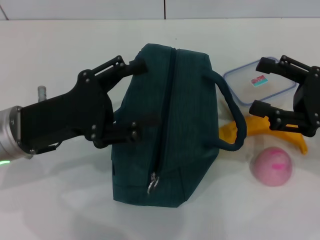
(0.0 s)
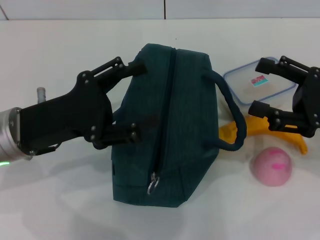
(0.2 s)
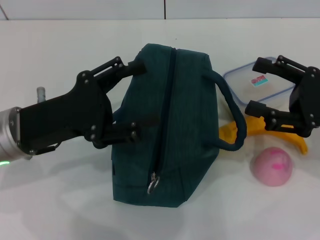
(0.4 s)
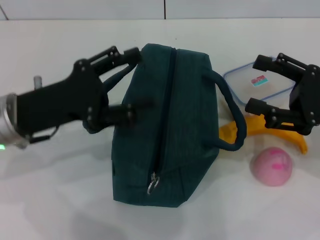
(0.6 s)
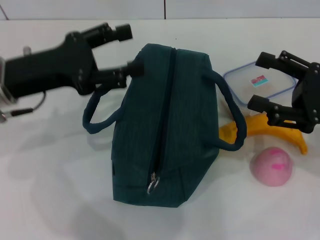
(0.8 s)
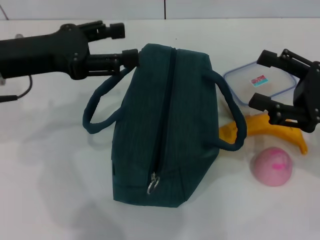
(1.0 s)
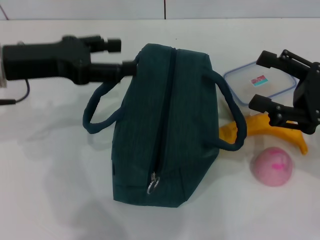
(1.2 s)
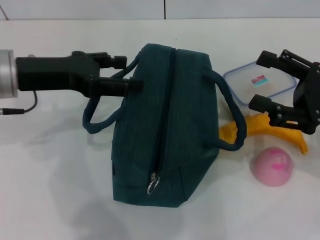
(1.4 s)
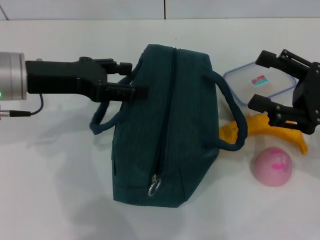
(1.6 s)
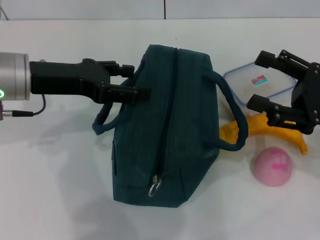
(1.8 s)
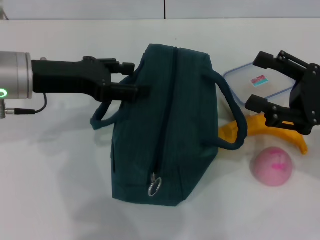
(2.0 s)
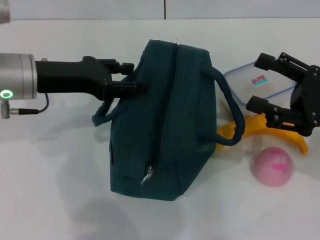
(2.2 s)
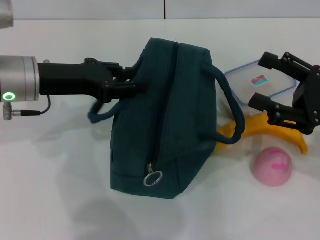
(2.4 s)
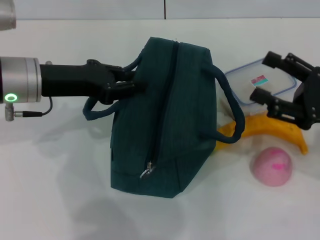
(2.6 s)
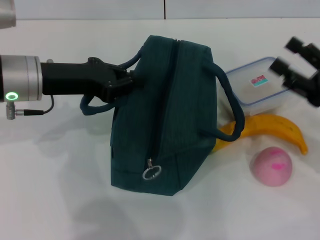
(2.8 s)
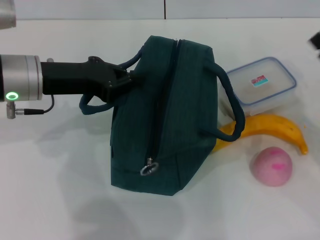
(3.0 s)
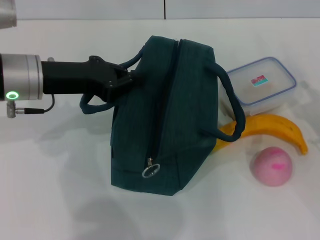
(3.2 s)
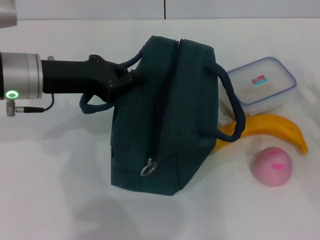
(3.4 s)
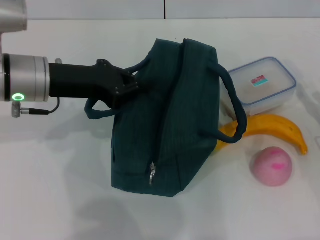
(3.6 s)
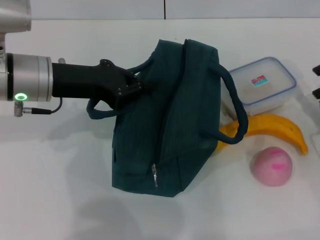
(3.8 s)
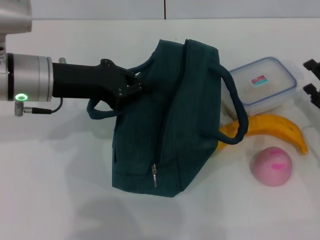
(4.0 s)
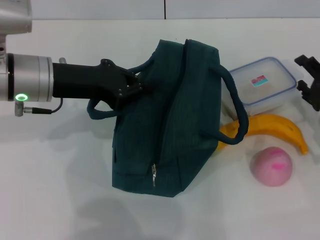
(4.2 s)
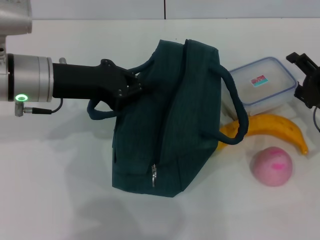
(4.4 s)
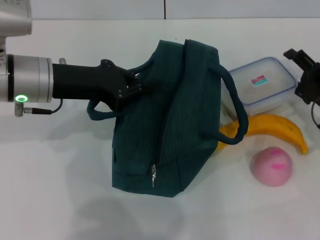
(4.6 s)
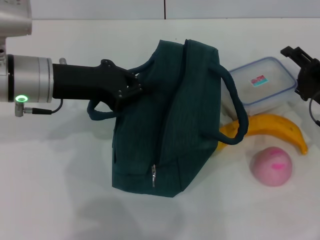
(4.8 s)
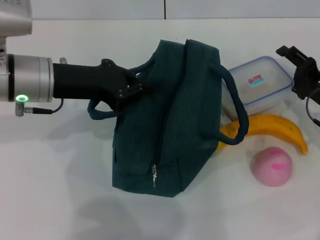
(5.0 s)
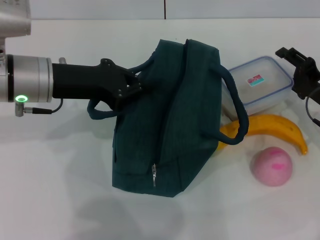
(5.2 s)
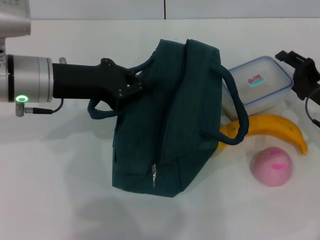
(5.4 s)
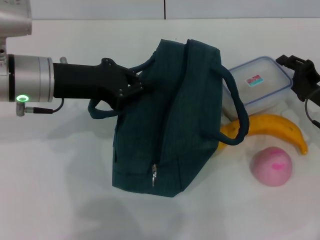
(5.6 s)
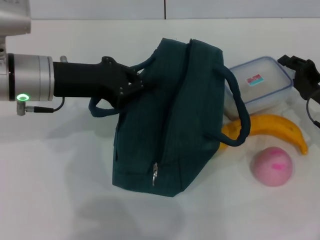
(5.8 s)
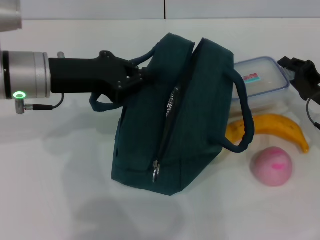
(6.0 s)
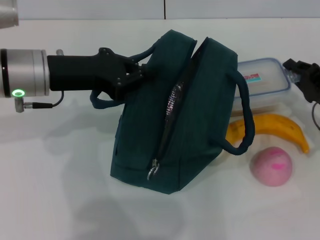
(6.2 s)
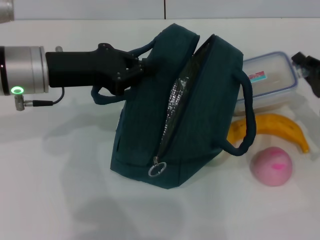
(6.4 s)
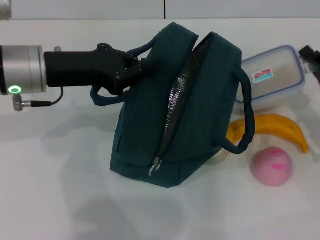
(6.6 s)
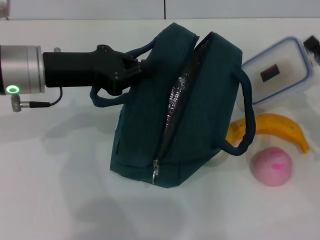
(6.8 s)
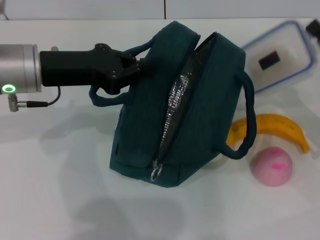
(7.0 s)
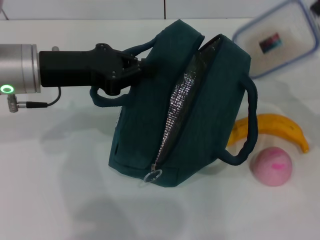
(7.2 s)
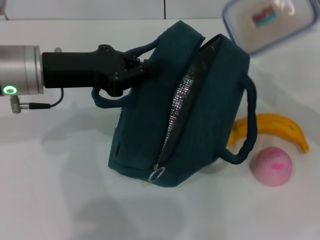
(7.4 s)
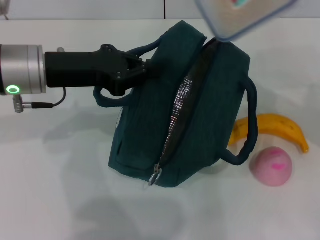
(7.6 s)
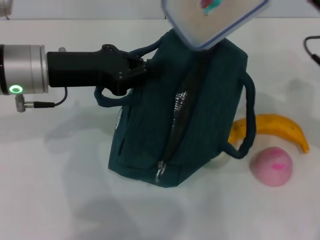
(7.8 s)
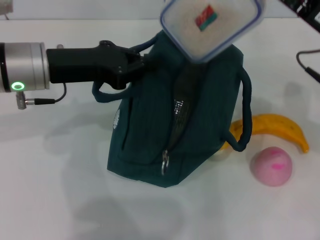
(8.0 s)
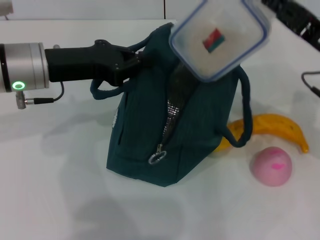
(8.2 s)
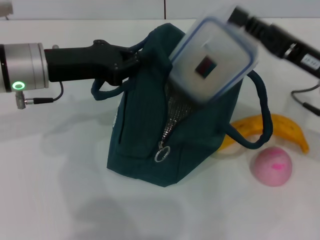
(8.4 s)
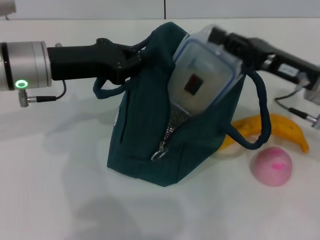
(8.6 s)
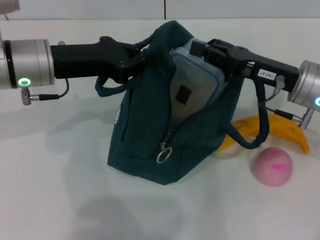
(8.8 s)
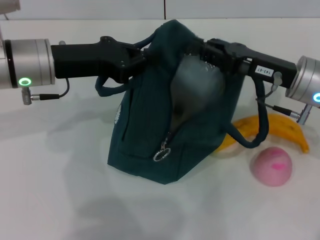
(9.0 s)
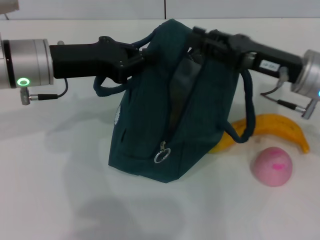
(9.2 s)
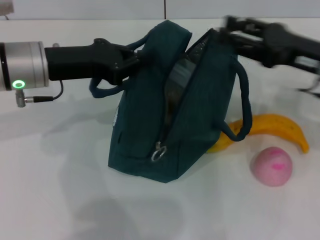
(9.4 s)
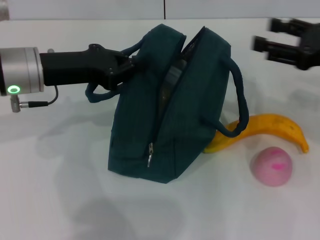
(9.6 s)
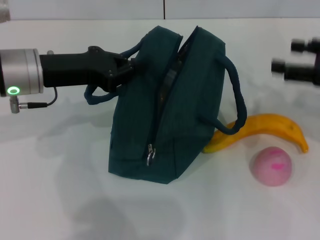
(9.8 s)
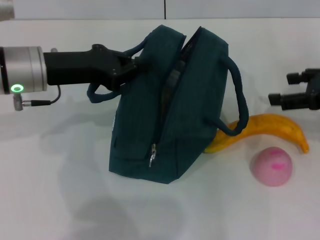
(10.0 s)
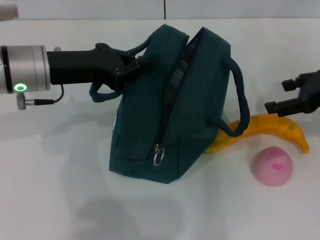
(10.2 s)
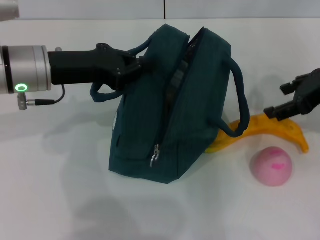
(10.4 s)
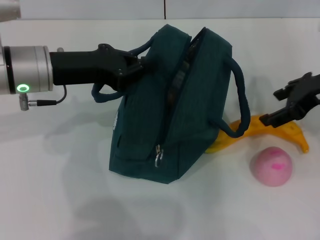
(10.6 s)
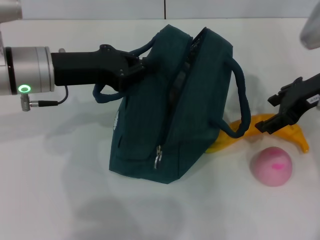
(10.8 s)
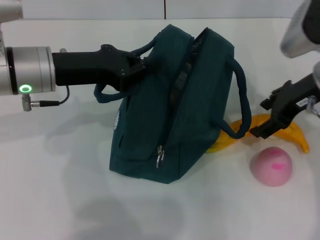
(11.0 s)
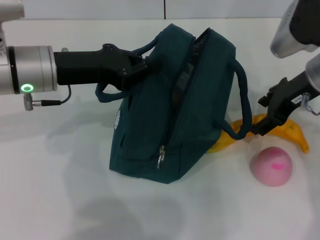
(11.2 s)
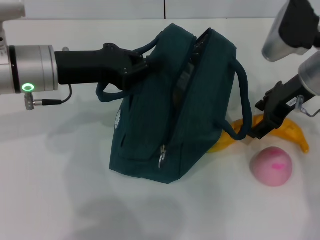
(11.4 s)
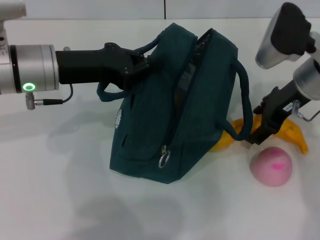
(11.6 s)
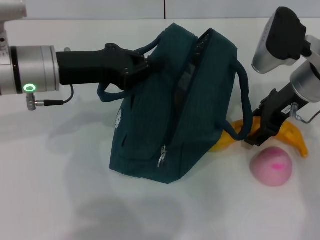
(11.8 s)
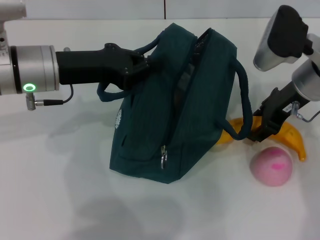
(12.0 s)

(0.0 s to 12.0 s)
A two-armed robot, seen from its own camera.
Step, 0.0 s - 3.2 s: Hold the lunch bag with your left hand.
Step, 3.4 s - 6.2 s: Pick up the lunch box with your right hand.
Step, 6.4 s - 9.2 s: Place the lunch box into the lunch bag with your right hand.
0.0 s - 1.6 s: The left gripper moves forward and upward, approximately 10 cm.
1.6 s - 3.0 s: The left gripper closes up. The right gripper changes place by roughly 5 cm.
3.0 s - 4.4 s: The right gripper moves forward, roughly 5 cm.
4.4 s - 6.0 s: The right gripper closes.
6.0 s - 7.6 s: The right gripper shifts approximately 15 cm upward.
7.6 s - 9.0 s: The right gripper heads to the left, covering some 5 cm.
9.0 s - 10.4 s: The right gripper shifts some 10 cm to the right and upward, and opens.
10.4 s - 12.0 s: The right gripper goes about 5 cm to the left.

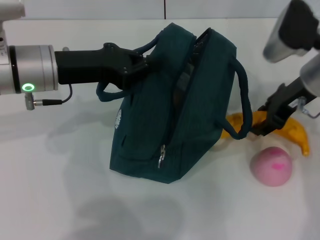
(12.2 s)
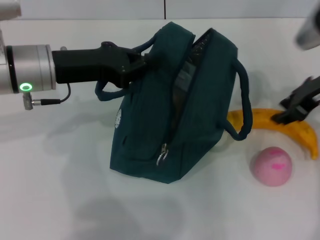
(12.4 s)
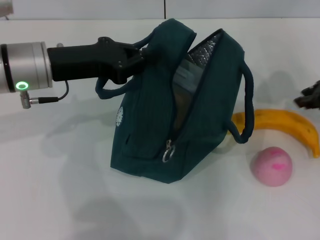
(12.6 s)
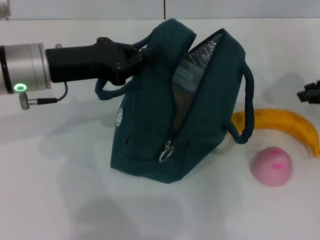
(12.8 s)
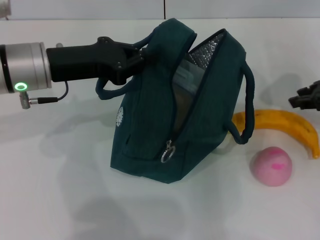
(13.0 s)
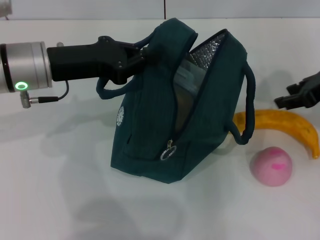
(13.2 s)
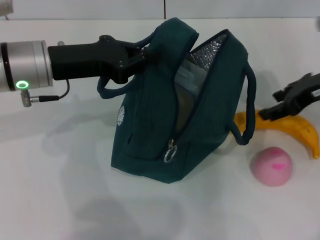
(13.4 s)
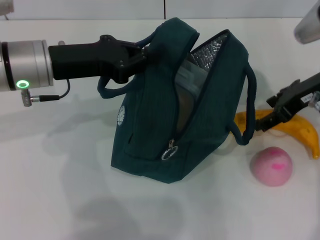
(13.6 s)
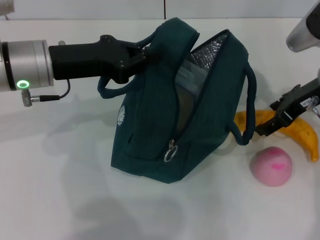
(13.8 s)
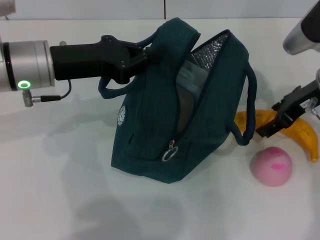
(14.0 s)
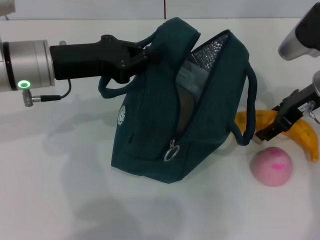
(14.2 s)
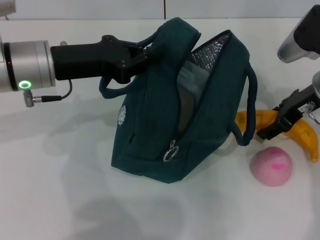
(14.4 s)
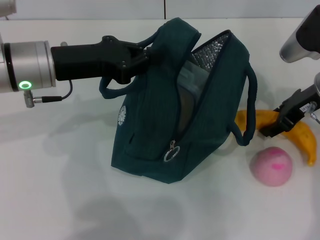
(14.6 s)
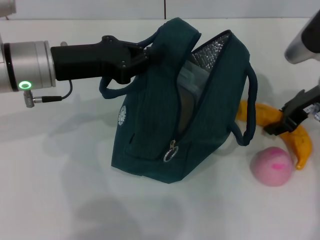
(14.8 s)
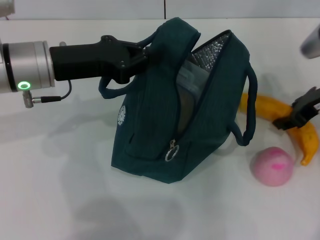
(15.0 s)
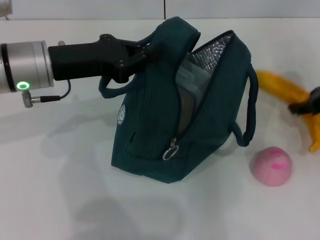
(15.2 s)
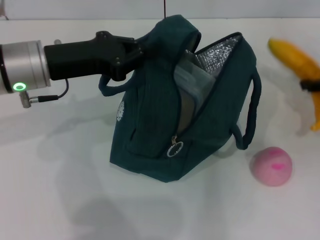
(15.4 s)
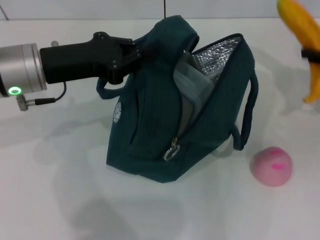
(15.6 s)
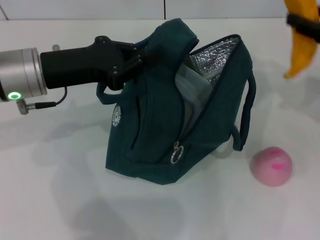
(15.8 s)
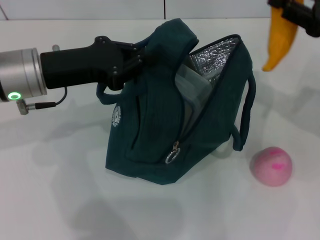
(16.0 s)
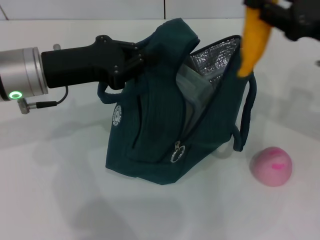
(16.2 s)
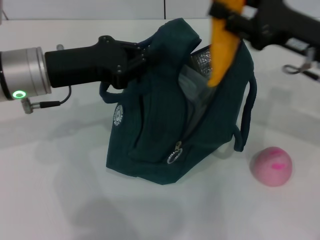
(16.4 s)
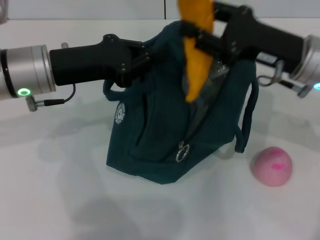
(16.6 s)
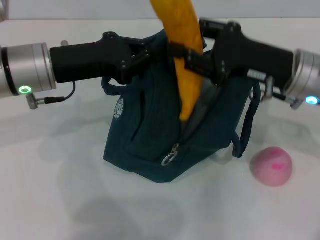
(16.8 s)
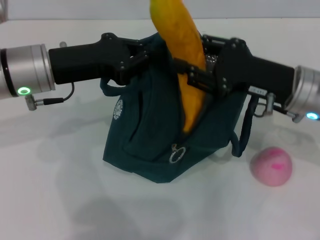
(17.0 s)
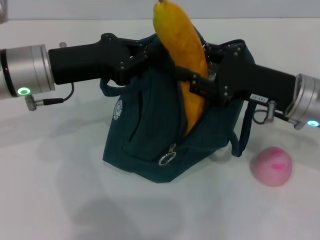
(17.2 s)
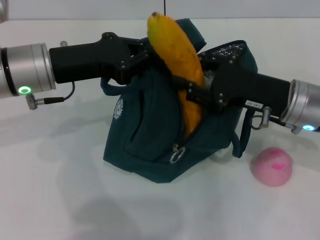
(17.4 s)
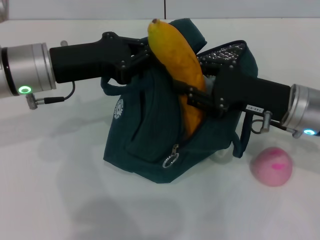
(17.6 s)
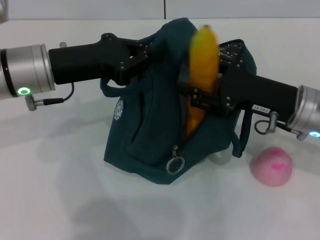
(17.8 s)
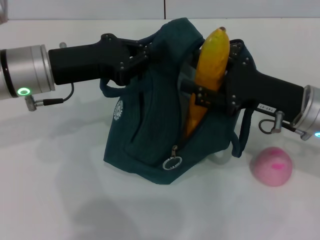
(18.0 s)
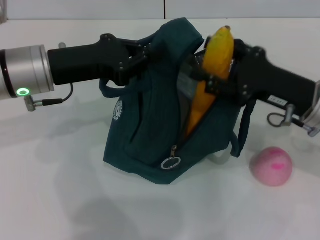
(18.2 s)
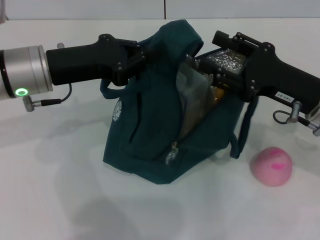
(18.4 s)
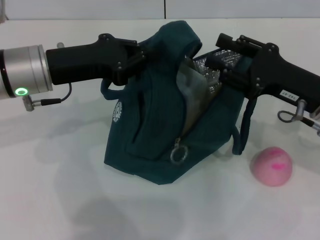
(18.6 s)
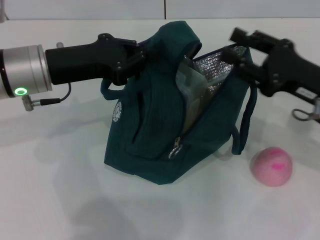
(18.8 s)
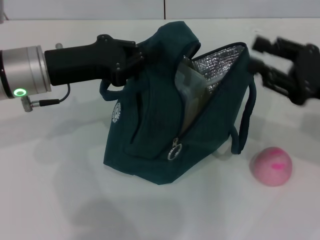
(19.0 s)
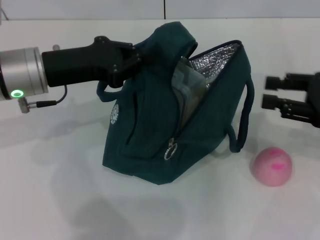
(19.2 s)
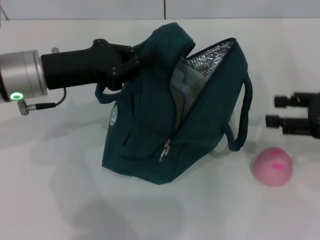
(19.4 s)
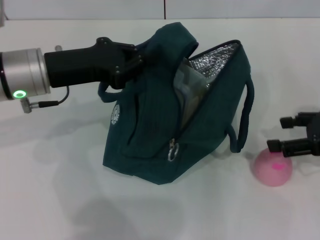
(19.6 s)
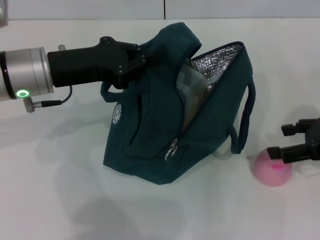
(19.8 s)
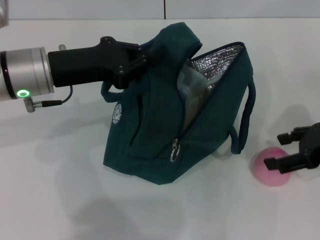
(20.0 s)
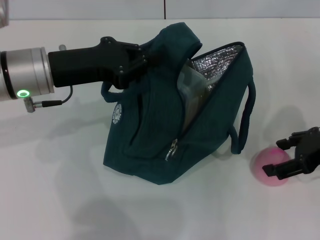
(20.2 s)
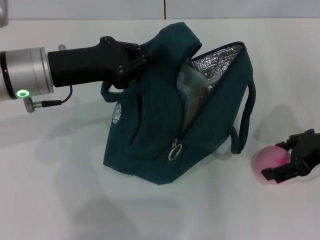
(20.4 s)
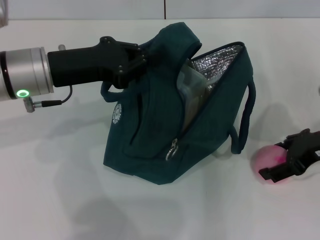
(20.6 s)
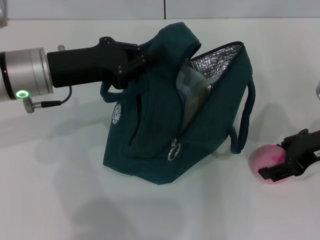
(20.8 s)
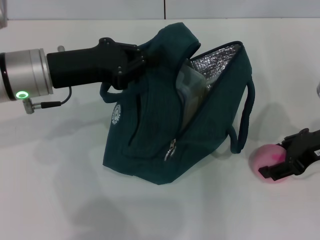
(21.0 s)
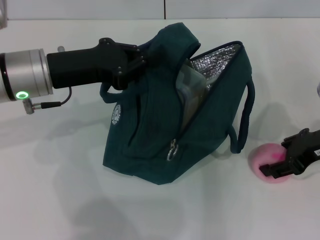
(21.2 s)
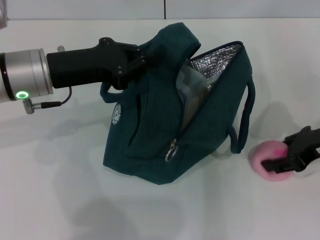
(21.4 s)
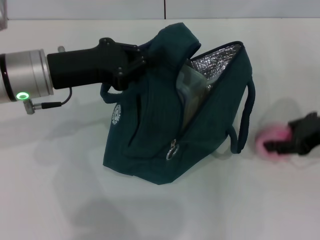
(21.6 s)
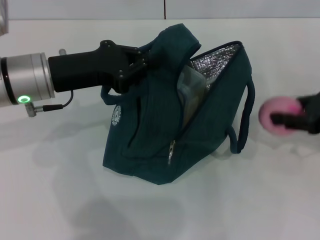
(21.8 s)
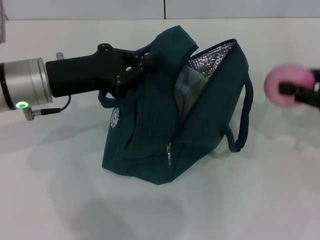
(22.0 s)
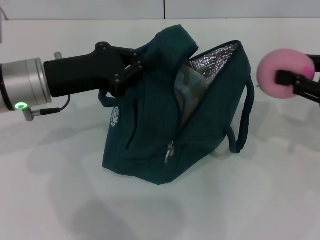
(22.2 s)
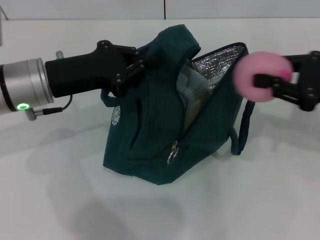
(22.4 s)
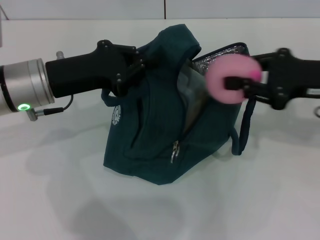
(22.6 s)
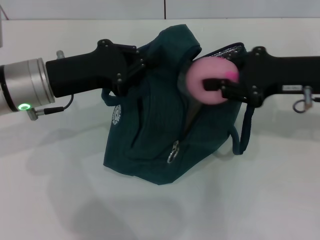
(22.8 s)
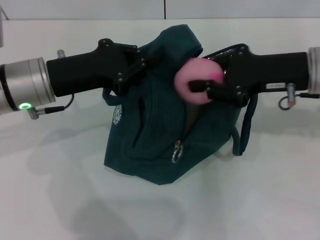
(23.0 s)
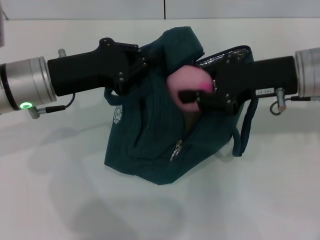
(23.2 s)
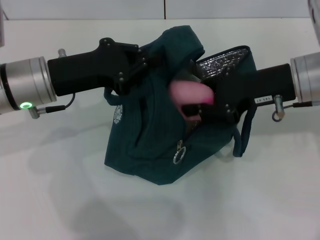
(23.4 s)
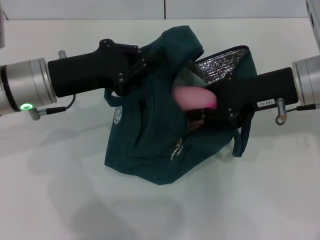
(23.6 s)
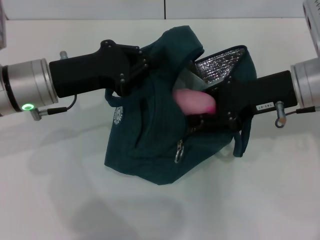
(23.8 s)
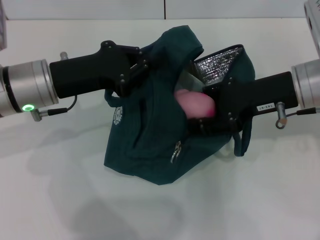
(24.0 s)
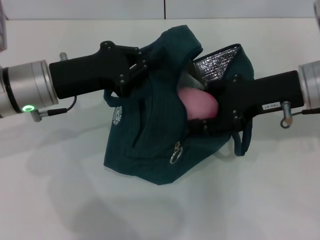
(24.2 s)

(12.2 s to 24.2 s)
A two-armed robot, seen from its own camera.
Step, 12.2 s - 14.6 s: Take the banana with your right hand.
Step, 14.8 s - 18.4 s: Put the banana into the lunch bag with your right hand.
Step, 18.6 s - 20.8 s: Grab the peach with your right hand.
12.2 s - 13.8 s: The right gripper reaches approximately 10 cm to the right, then returns, and closes, then reopens.
13.8 s - 15.2 s: The right gripper is displaced to the right by roughly 5 cm, and closes its fingers.
15.2 s - 16.6 s: The right gripper goes approximately 10 cm to the left.
16.6 s - 18.2 s: The right gripper ends up approximately 5 cm from where it was.
18.2 s - 19.8 s: The right gripper shifts some 10 cm to the right.
19.8 s - 21.2 s: The right gripper shifts by approximately 5 cm.
21.2 s - 22.6 s: The right gripper closes.
22.6 s - 24.2 s: The right gripper is displaced to the left by some 5 cm, and opens.
